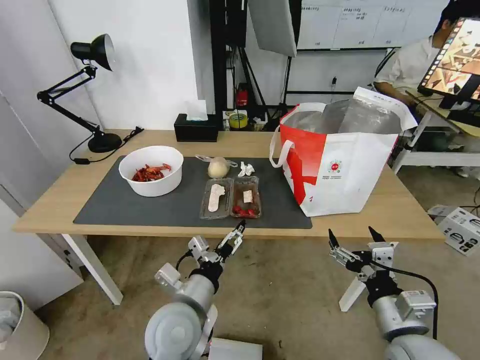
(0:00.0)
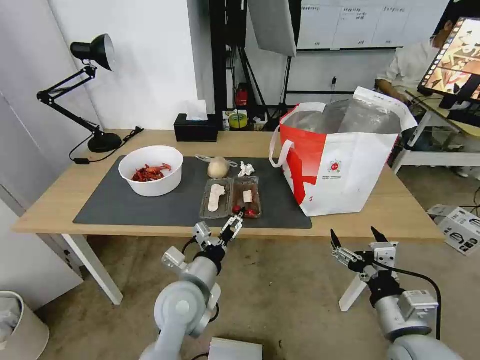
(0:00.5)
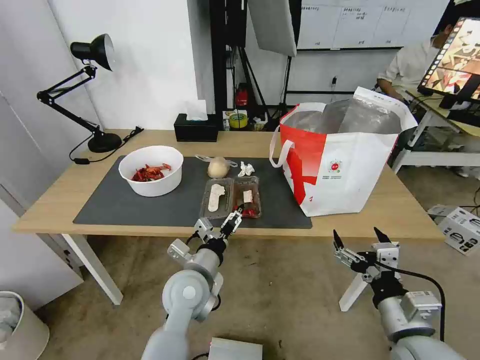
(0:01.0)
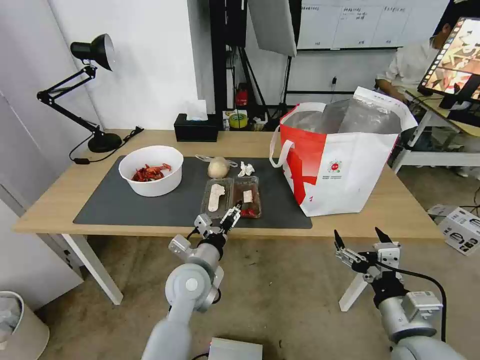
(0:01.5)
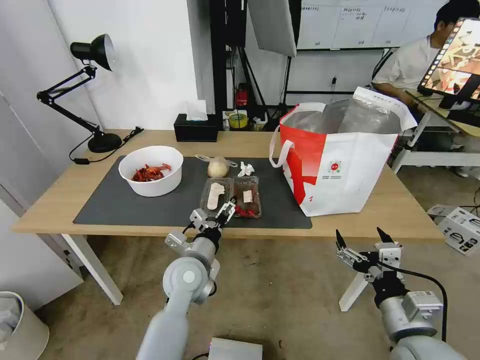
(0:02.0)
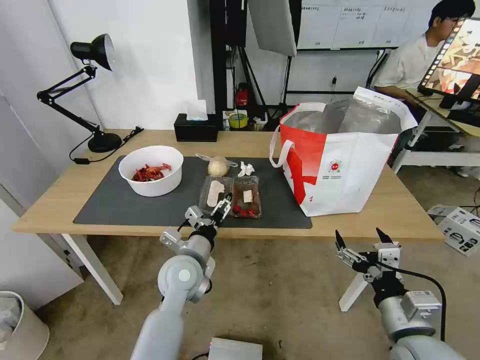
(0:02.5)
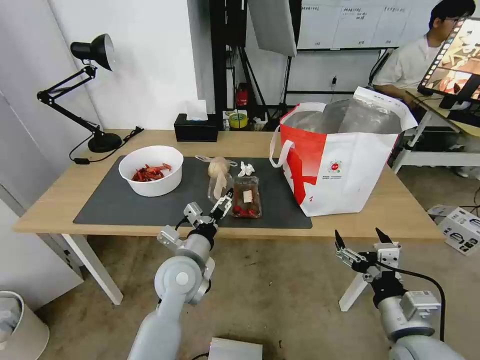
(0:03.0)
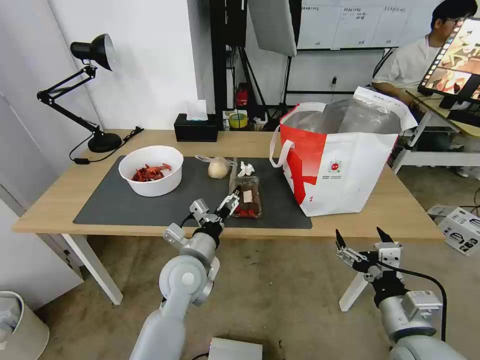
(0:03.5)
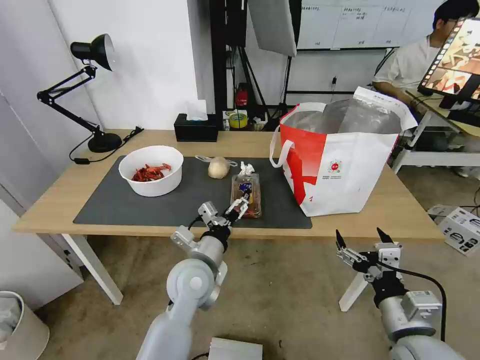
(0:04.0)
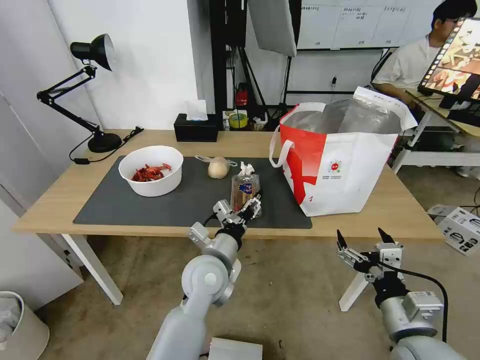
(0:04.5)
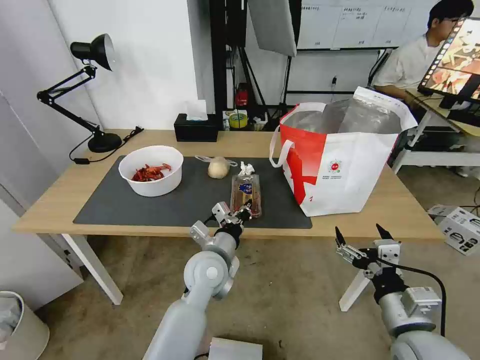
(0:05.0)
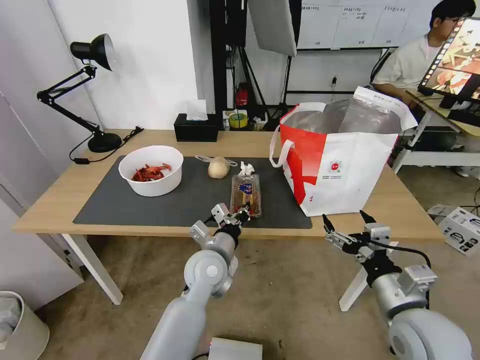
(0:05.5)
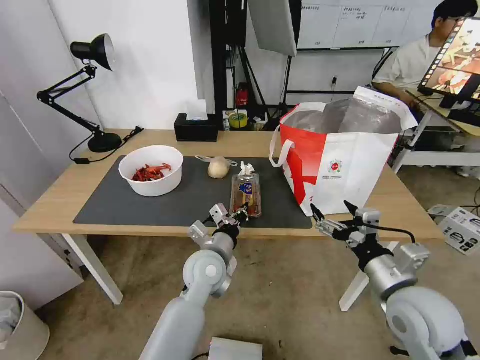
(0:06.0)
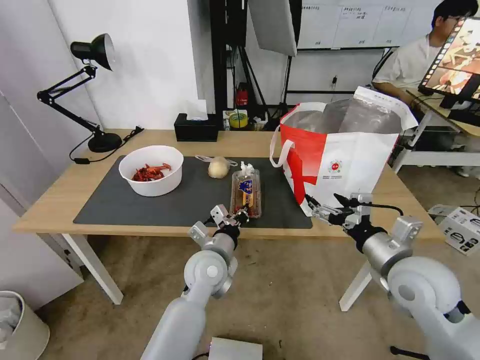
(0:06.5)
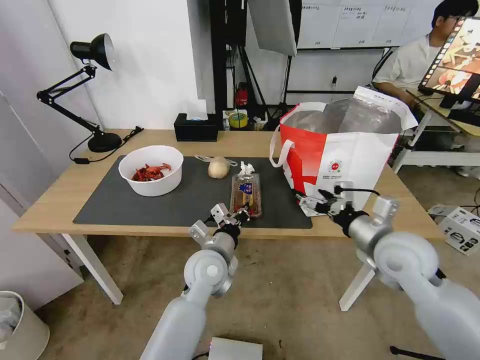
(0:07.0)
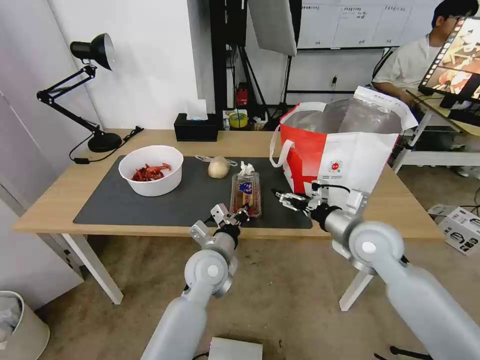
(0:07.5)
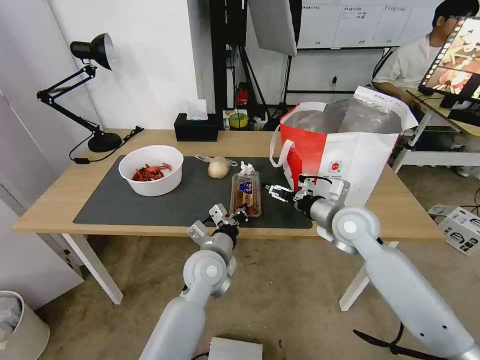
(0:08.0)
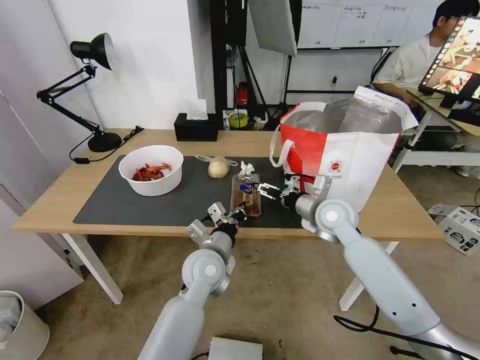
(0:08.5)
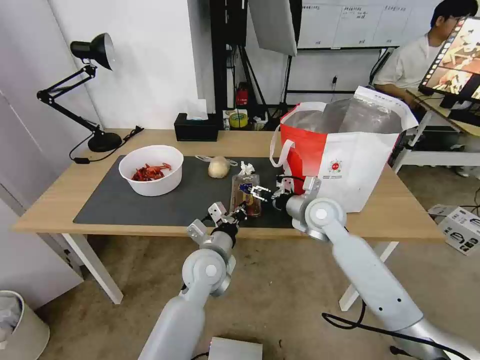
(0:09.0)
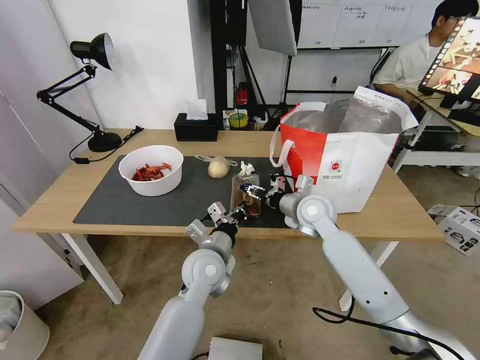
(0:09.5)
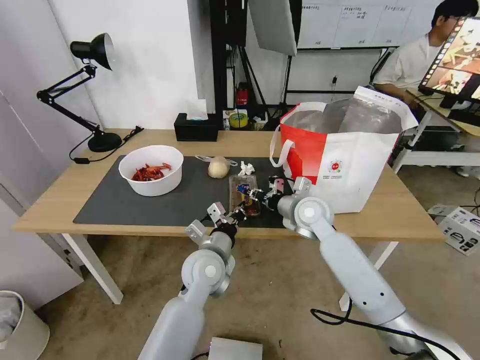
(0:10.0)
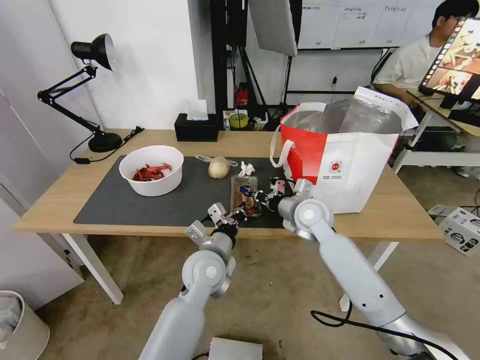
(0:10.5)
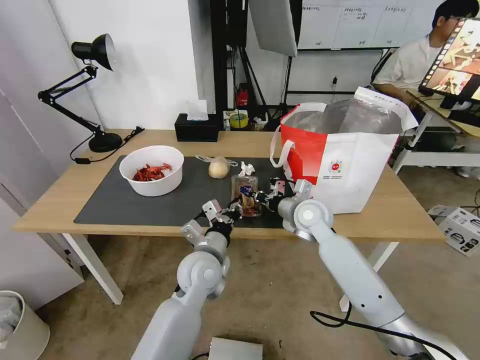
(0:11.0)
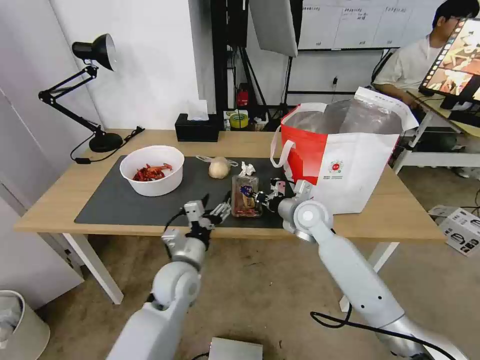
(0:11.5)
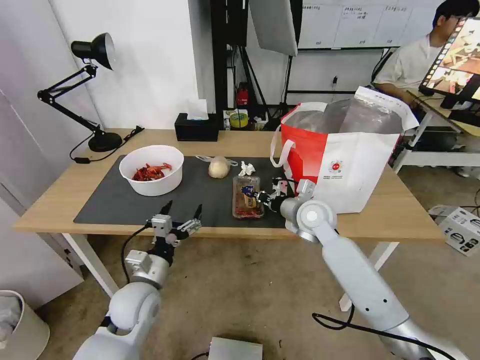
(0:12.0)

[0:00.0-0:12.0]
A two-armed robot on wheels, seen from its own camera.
Task of the whole recording: Pick up the trash from the table and place it into the takeout bag.
0:00.0 to 0:02.0: The left gripper goes about 10 cm forward.
0:02.0 to 0:04.0: The grippers stay close to where they were, moving slightly.
0:04.0 to 0:06.0: The right gripper is displaced forward by approximately 5 cm. The left gripper closes.
0:06.0 to 0:08.0: The right gripper is displaced forward by approximately 20 cm.
0:08.0 to 0:10.0: The right gripper goes roughly 10 cm to the left and forward, and closes.
0:10.0 to 0:12.0: The left gripper heads to the left and backward, covering some 15 cm, and opens up.

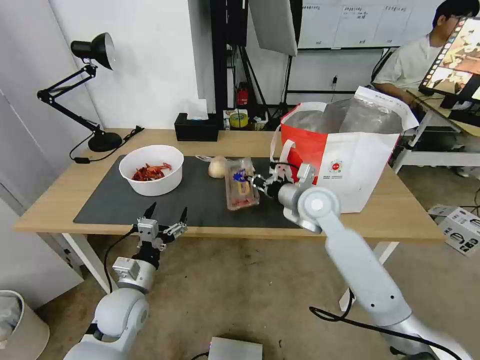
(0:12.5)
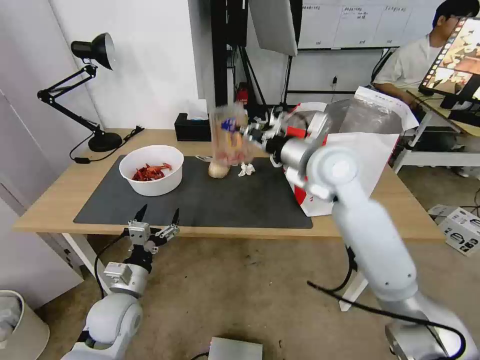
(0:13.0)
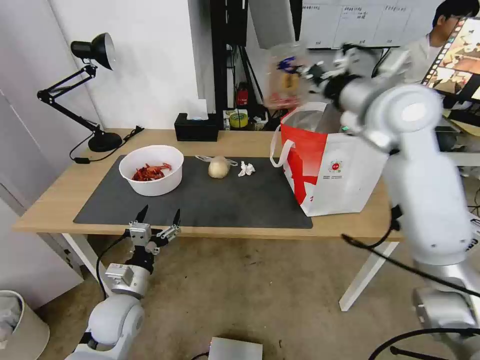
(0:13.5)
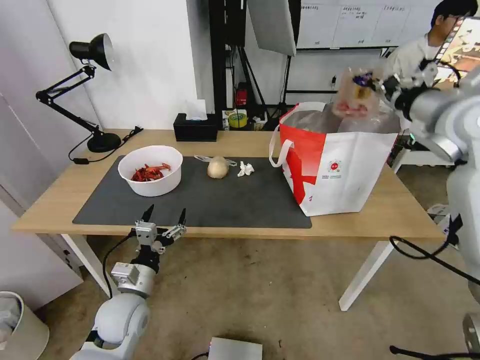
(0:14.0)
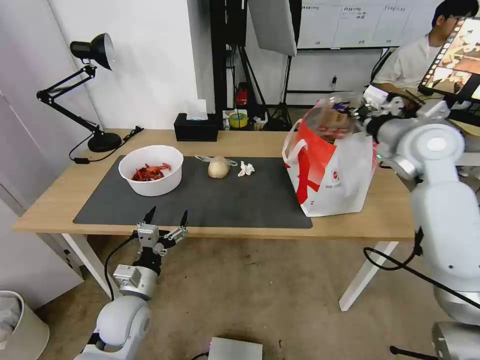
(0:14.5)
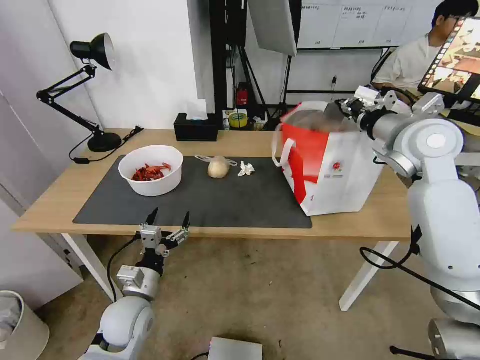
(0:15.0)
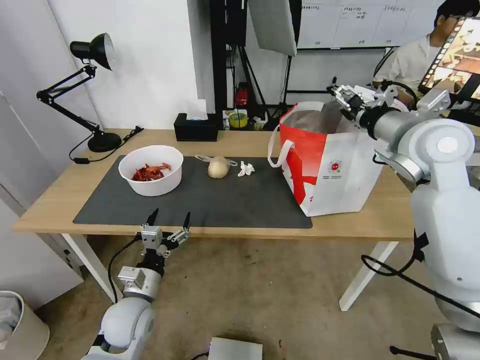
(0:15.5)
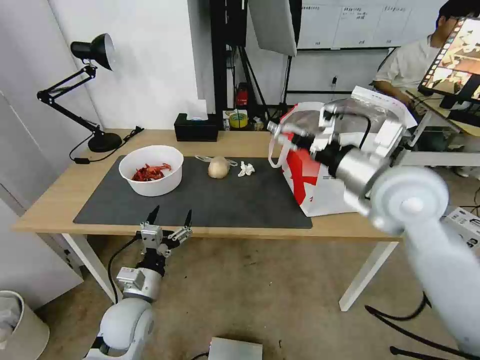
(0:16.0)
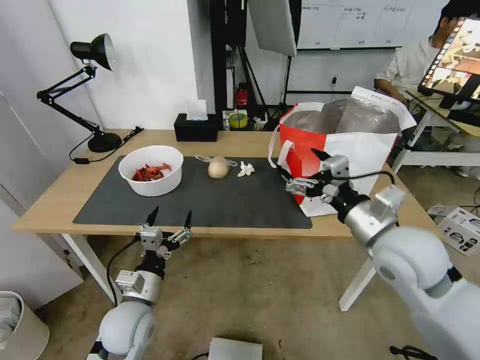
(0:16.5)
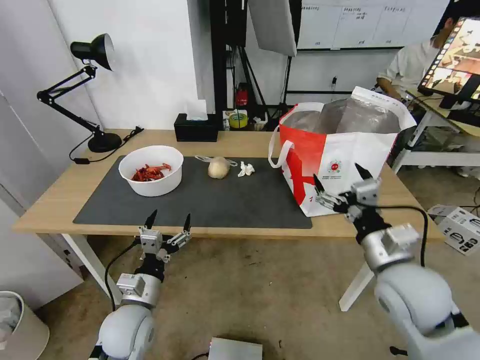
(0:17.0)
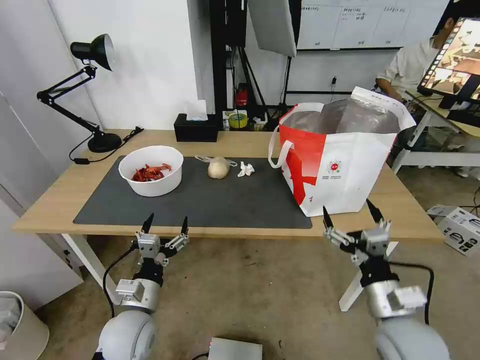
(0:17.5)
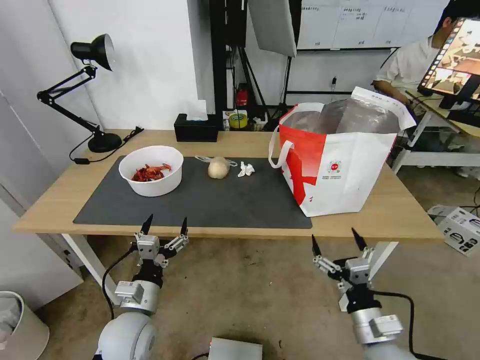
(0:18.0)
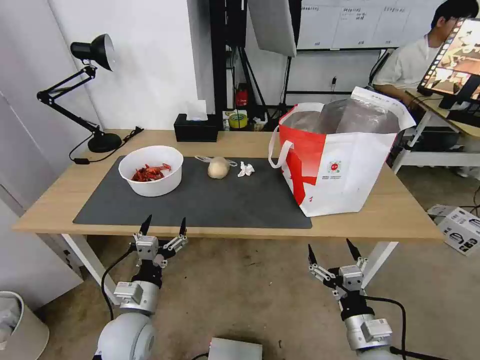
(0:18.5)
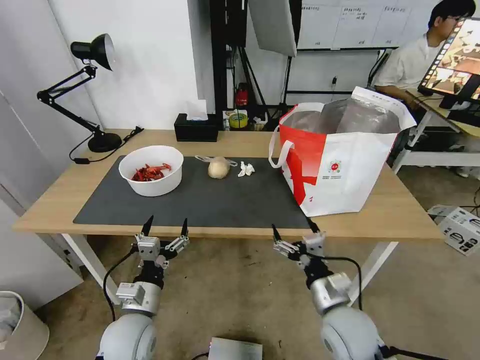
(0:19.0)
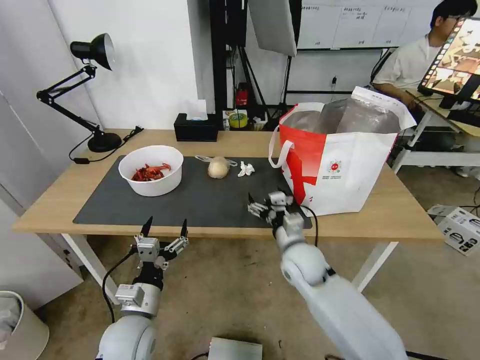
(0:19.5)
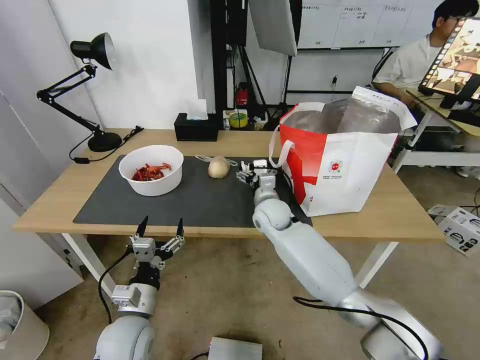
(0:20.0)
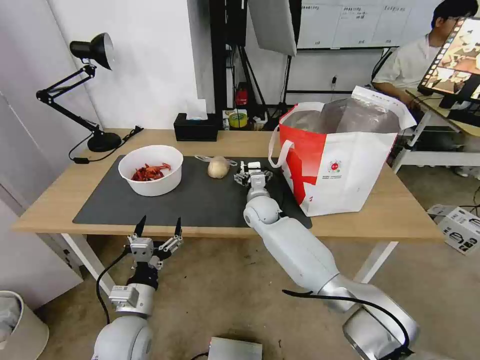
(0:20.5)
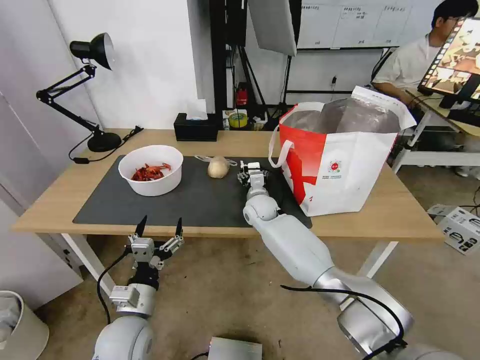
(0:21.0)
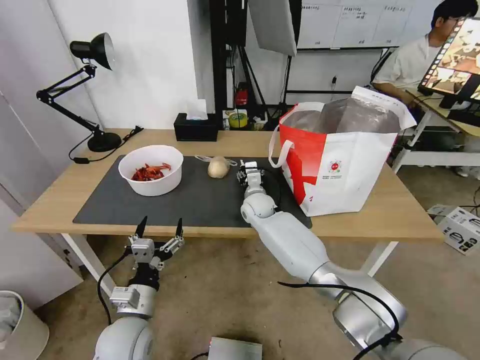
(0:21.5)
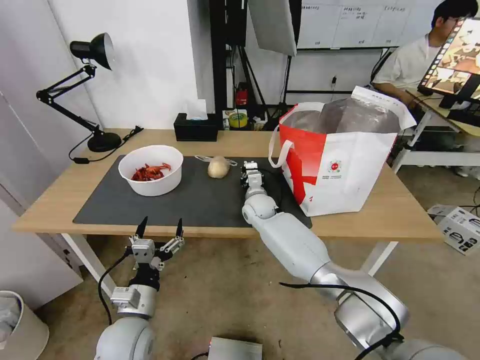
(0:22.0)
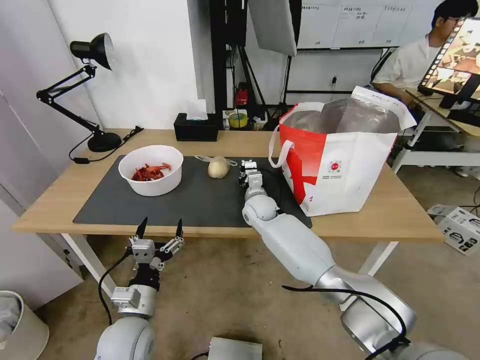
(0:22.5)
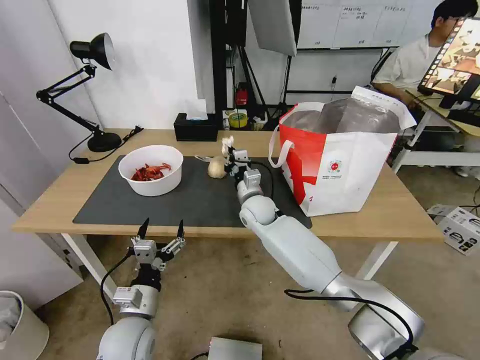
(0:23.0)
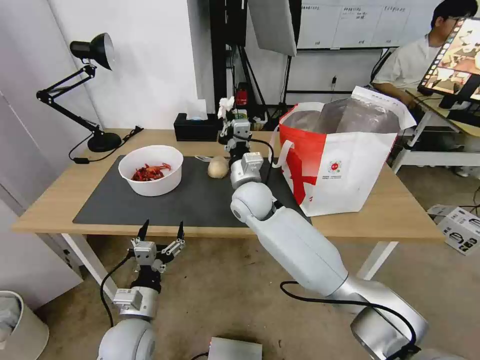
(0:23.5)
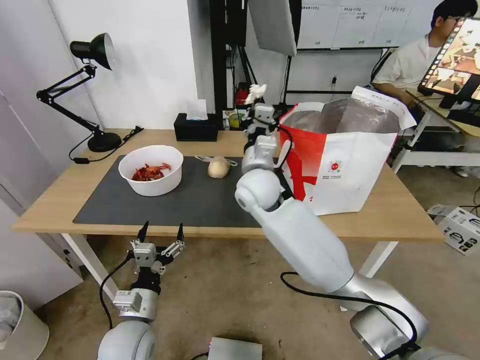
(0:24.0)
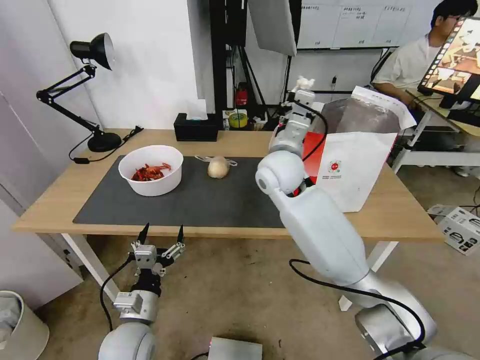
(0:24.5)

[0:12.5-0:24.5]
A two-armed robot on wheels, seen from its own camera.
Task of the whole recording: Pick up the trash from the table and place it into the takeout bag.
0:12.5 to 0:14.5: The right gripper heads to the right and upward, covering roughly 20 cm.
0:14.5 to 0:16.5: The right gripper travels backward, downward and to the left by roughly 20 cm, and opens its fingers.
0:16.5 to 0:18.5: The right gripper shifts roughly 25 cm downward and backward.
0:18.5 to 0:20.5: The right gripper travels forward and to the left by about 40 cm.
0:20.5 to 0:22.5: The right gripper closes its fingers.
0:22.5 to 0:24.5: The right gripper is displaced upward by roughly 20 cm.

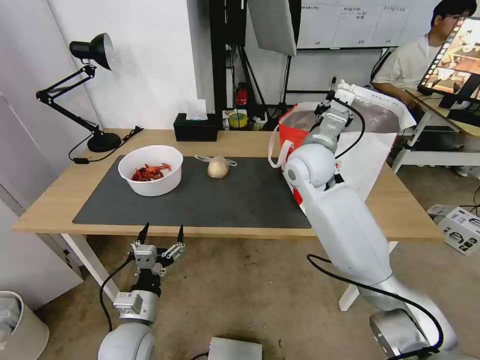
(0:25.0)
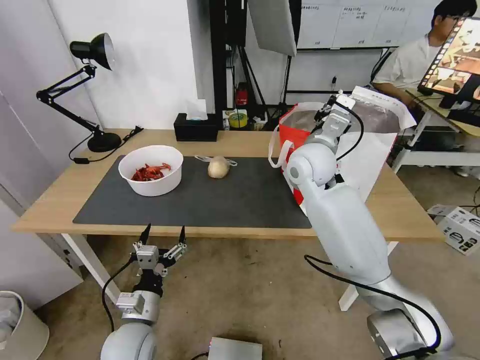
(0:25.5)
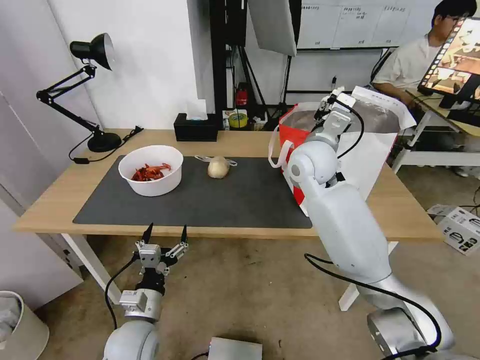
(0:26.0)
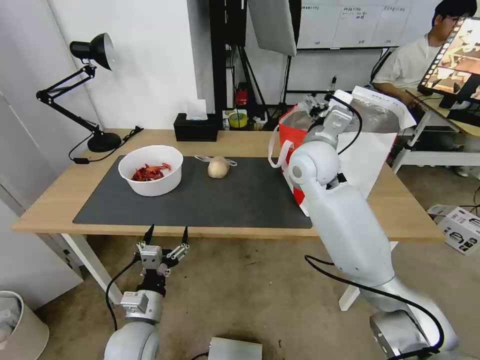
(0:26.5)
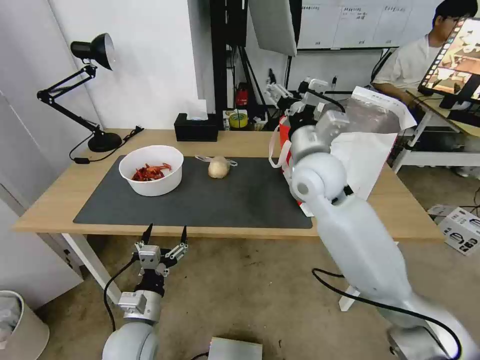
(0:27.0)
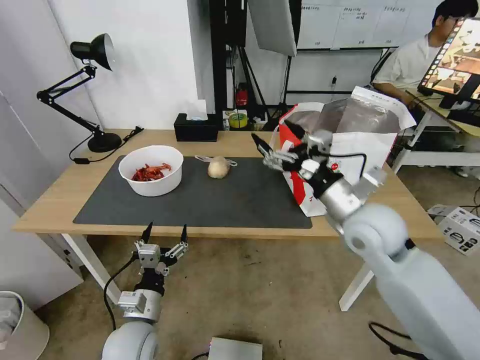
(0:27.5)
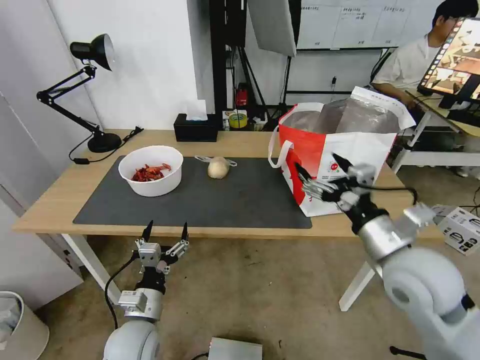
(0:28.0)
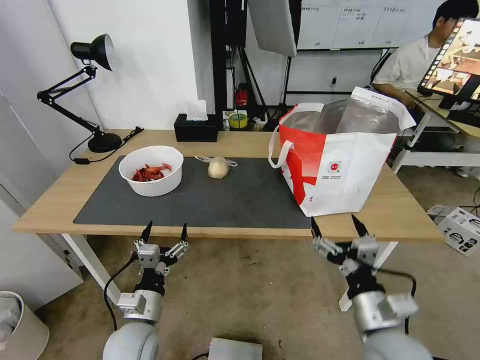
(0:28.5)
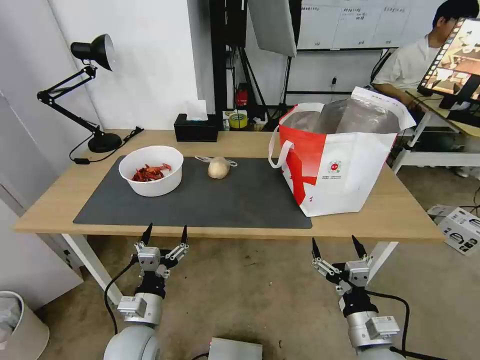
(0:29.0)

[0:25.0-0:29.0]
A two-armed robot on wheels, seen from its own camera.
Task of the whole recording: Pick up the trash from the table and place it into the takeout bag.
0:25.0 to 0:27.0: The right gripper travels backward by roughly 5 cm, and opens up.
0:27.0 to 0:29.0: The right gripper heads backward and downward, covering approximately 35 cm.
